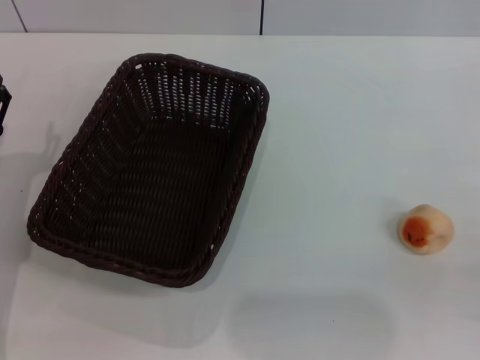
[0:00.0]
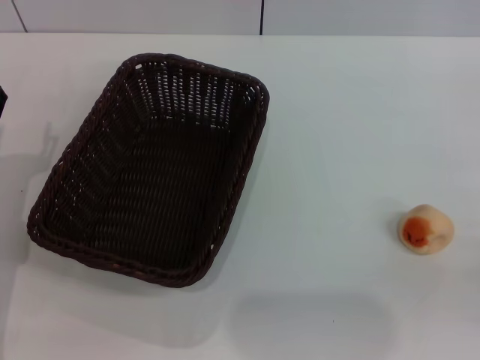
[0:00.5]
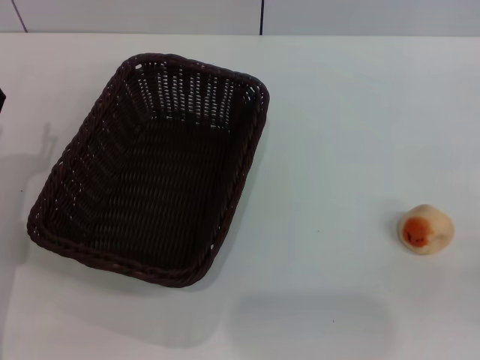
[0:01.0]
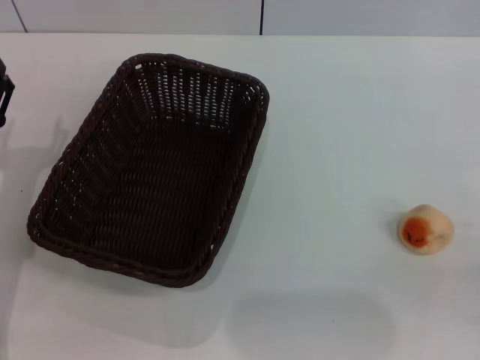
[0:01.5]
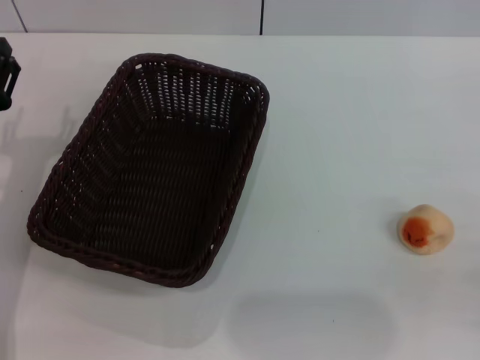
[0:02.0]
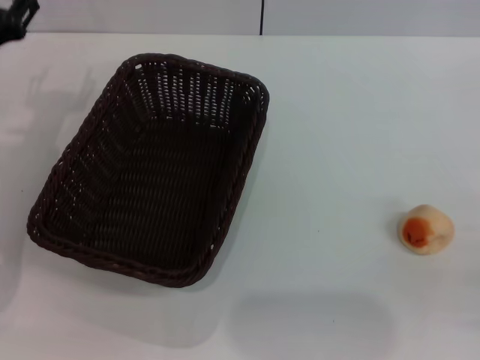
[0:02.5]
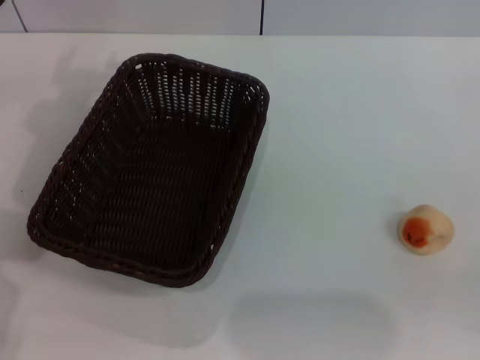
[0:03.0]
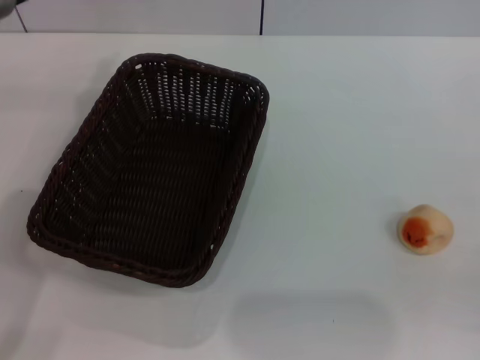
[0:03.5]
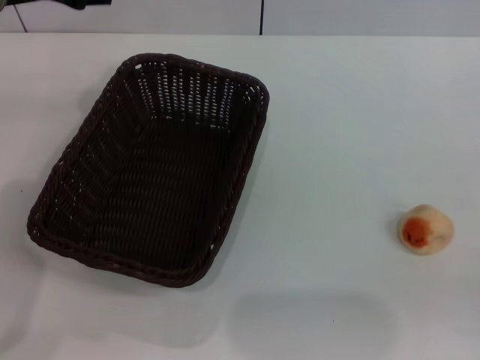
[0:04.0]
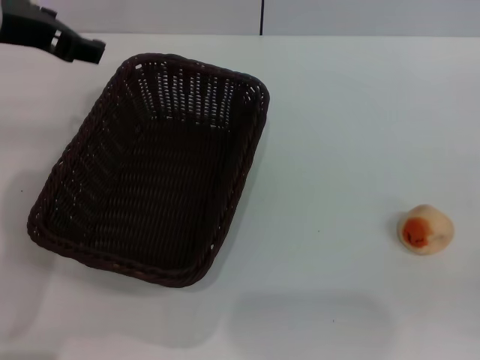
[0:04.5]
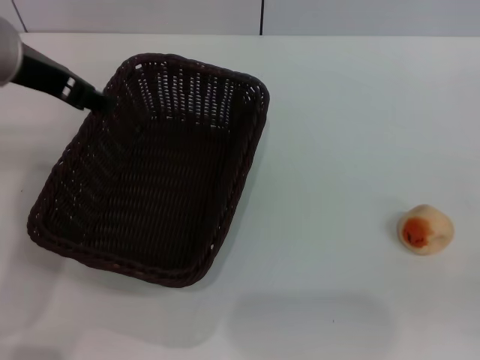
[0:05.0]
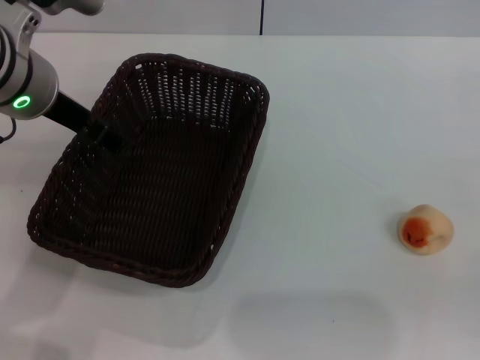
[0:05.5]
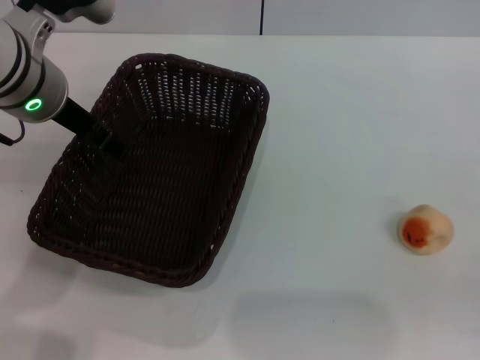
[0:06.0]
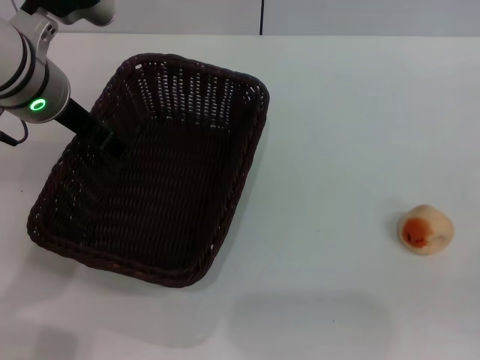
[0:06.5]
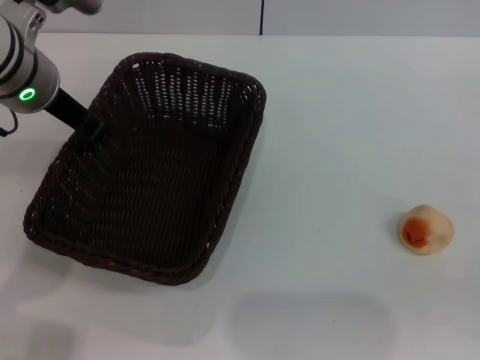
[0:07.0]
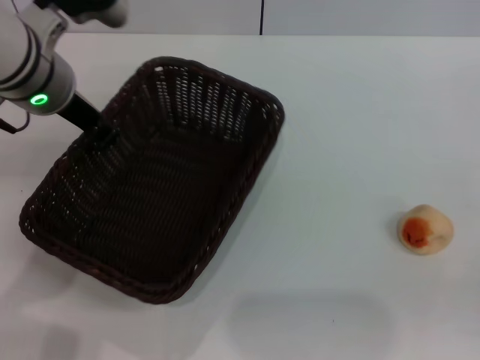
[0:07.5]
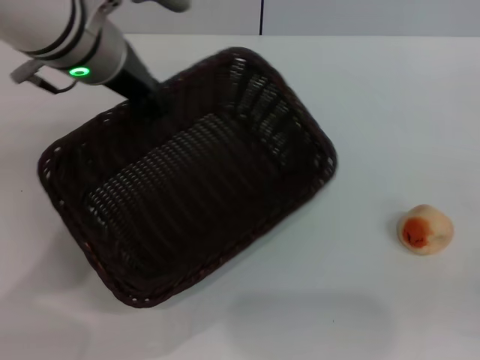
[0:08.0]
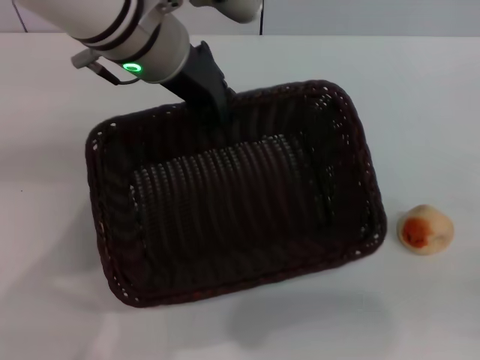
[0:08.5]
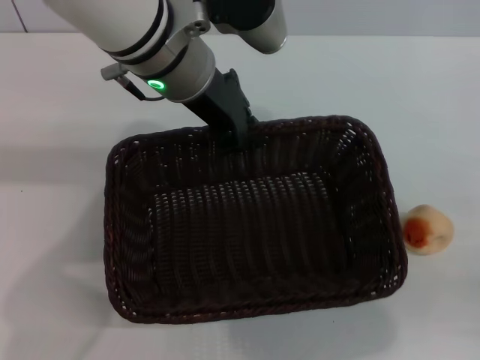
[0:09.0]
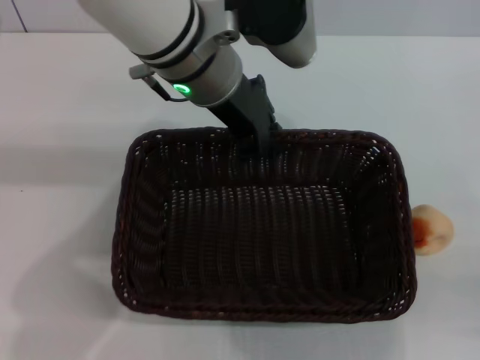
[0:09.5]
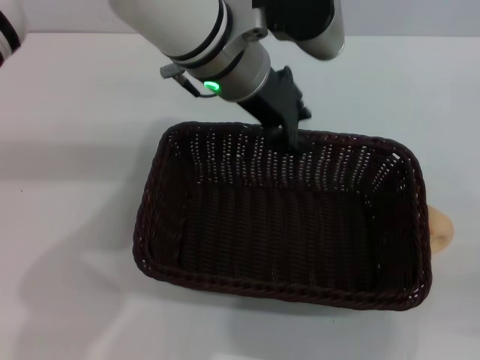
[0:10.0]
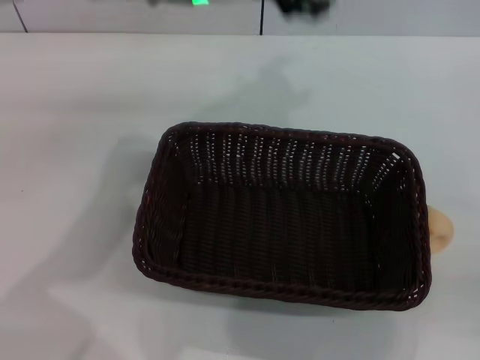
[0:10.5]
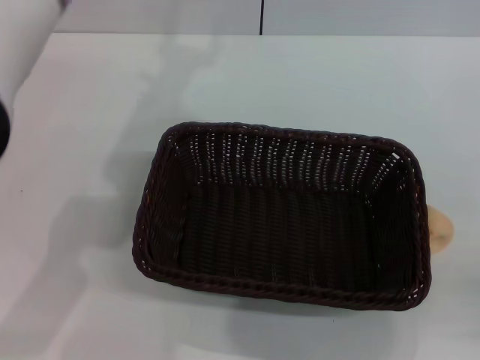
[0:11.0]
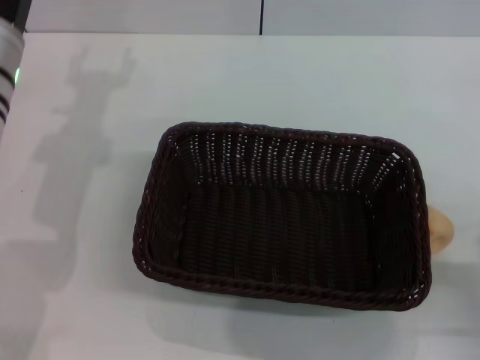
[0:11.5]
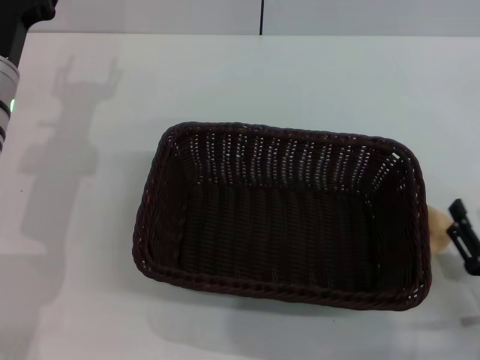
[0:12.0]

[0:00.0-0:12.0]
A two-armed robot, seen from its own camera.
Step, 0:00.0 to 0:10.0: Move the basket to the center of view with the left gripper.
0:02.0 to 0:04.0: The left gripper is displaced upward by about 20 cm.
0:04.0 to 0:06.0: The left gripper travels downward by approximately 5 cm.
0:06.0 to 0:08.0: The left gripper ends up roughly 5 cm from where it was, and closes.
0:08.0 to 0:10.0: The left gripper is displaced to the right by about 10 cm.
0:10.0 to 0:12.0: The right gripper heads to the left, covering about 5 cm; the left gripper goes approximately 25 cm to the left and downward, and opens.

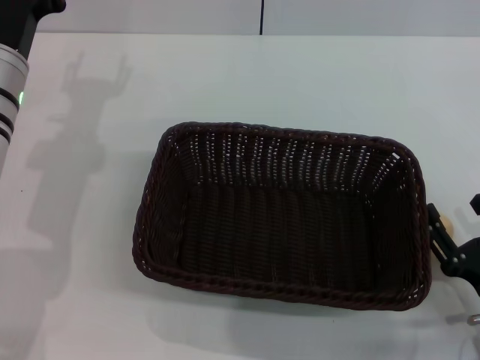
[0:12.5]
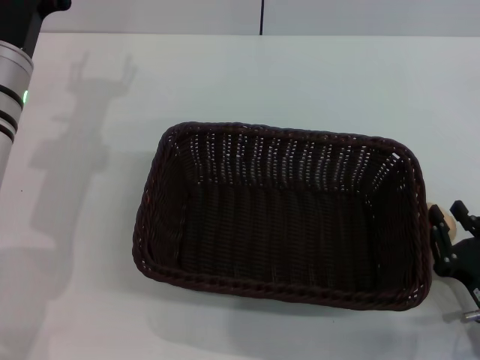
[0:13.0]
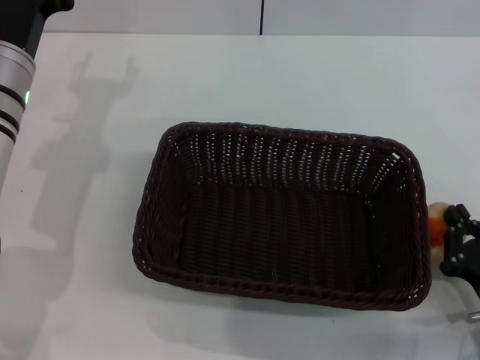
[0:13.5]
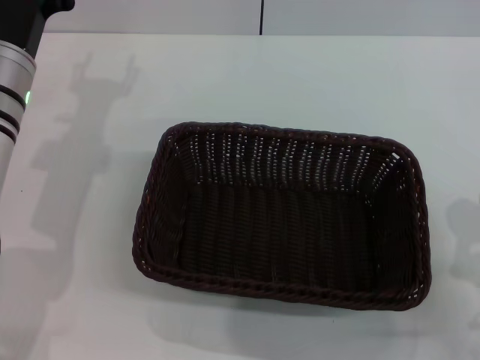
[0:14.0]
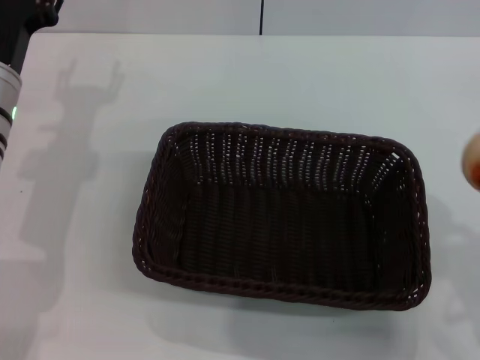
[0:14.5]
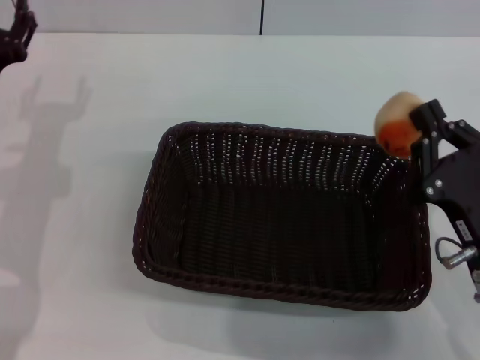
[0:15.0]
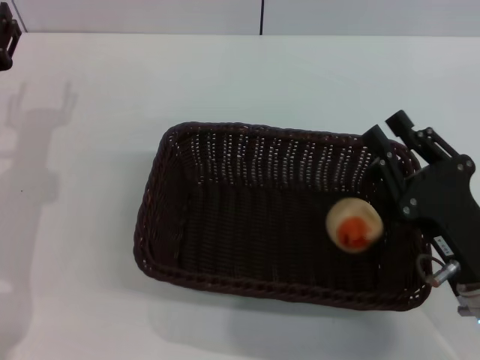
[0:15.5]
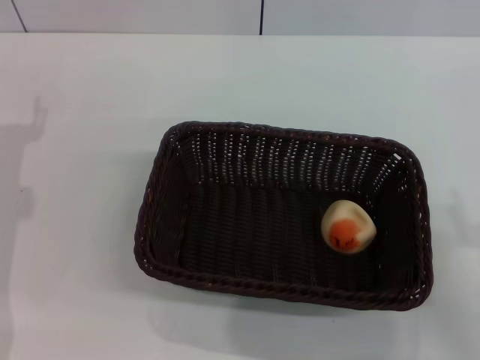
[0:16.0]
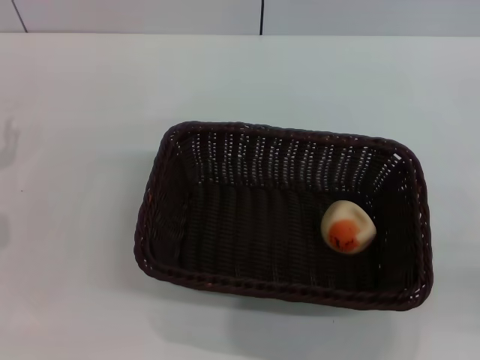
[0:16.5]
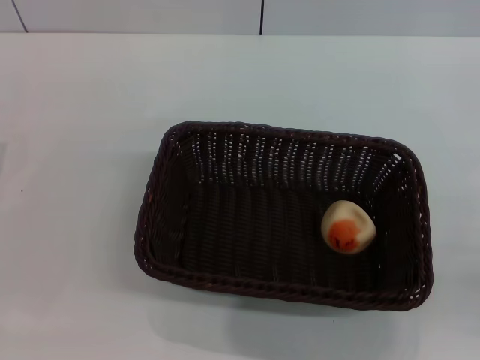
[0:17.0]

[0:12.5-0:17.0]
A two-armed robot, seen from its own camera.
Step, 0:14.0 to 0:15.5: Place the egg yolk pastry into the basket with the right gripper.
0:12.5 to 0:14.5: The right gripper goes about 5 cm upward, and closes its fingers.
0:14.5 to 0:17.0: The left gripper shifts roughly 15 cm backward, to the left and downward, while the right gripper shifts approximately 10 cm to the right, and opens its fingers.

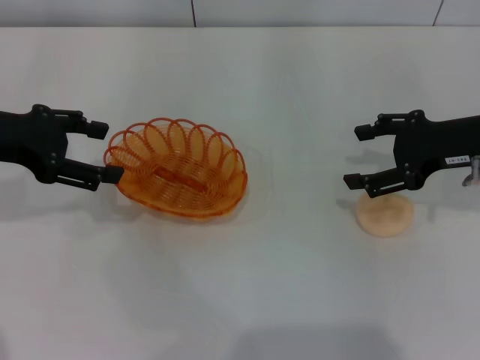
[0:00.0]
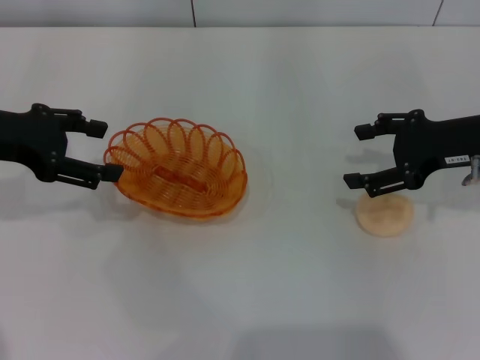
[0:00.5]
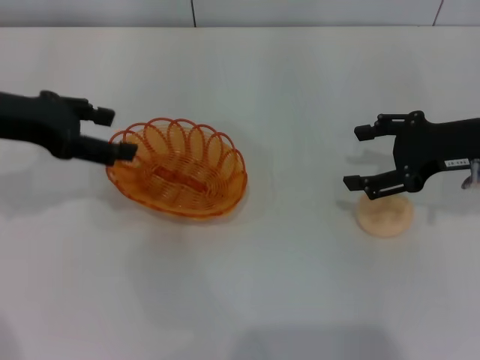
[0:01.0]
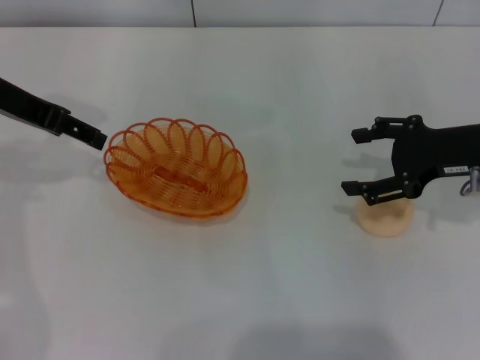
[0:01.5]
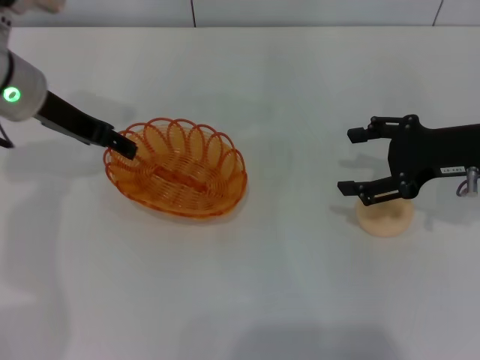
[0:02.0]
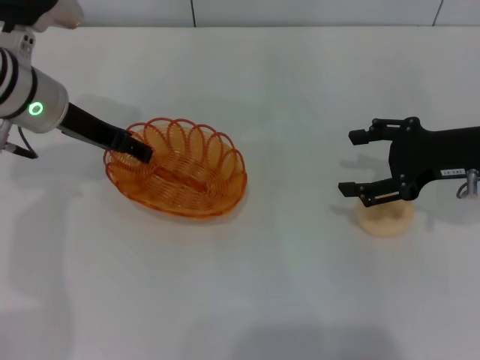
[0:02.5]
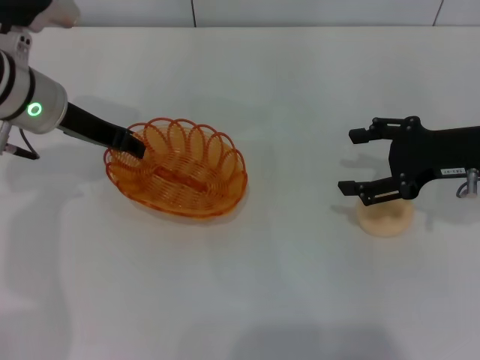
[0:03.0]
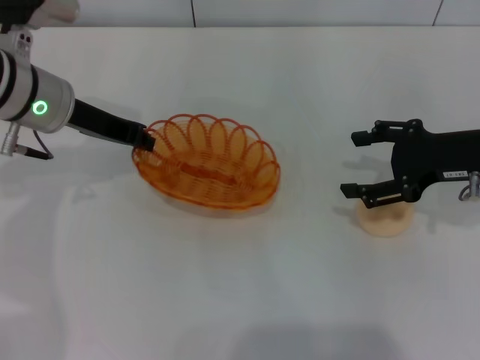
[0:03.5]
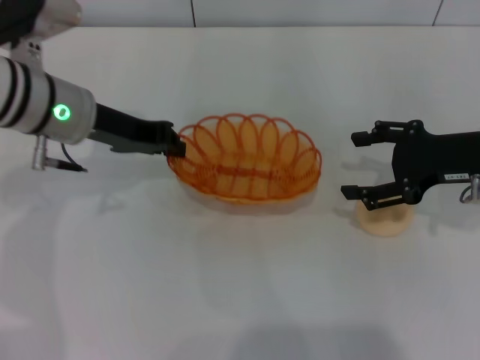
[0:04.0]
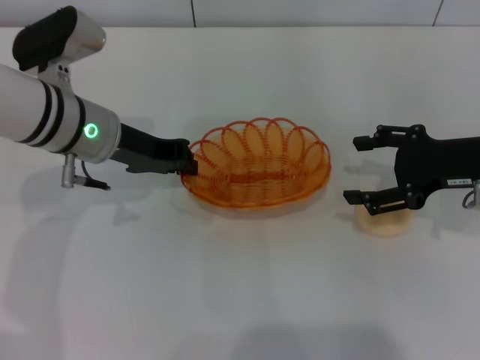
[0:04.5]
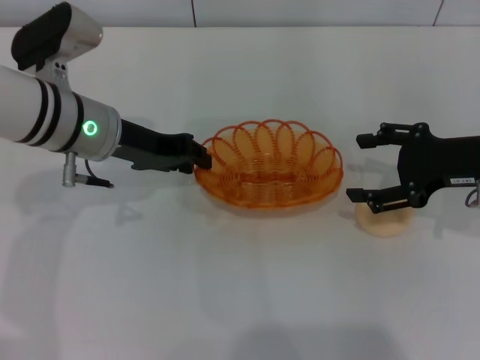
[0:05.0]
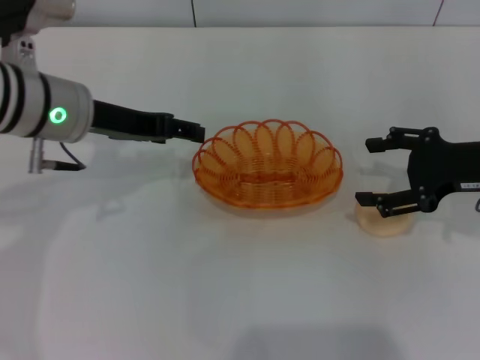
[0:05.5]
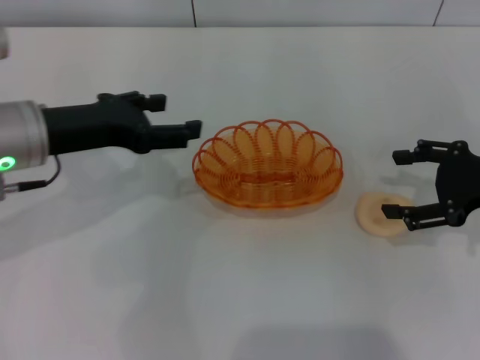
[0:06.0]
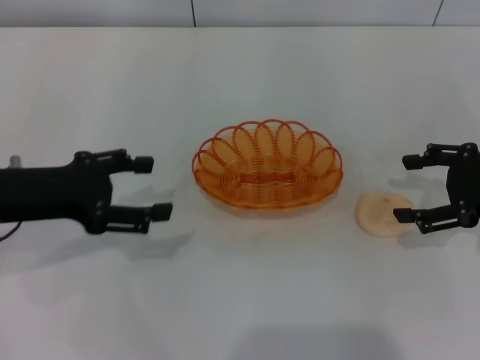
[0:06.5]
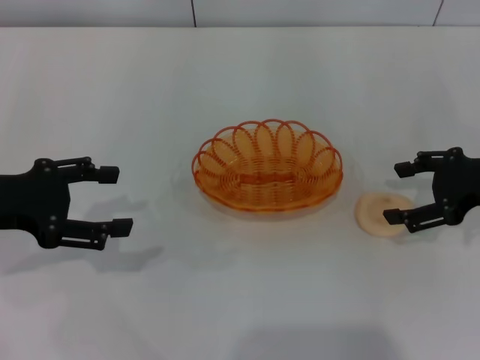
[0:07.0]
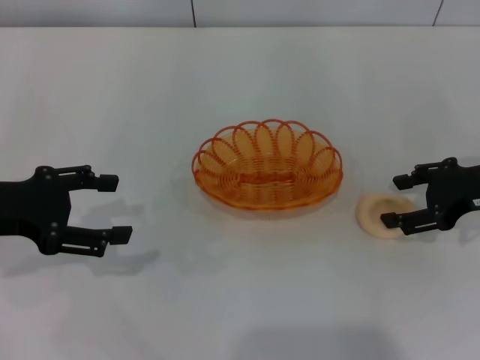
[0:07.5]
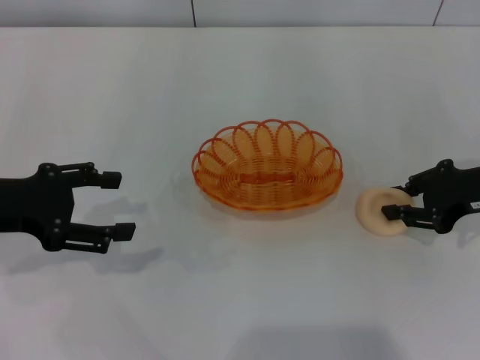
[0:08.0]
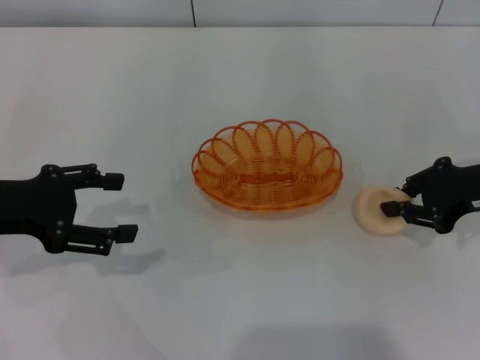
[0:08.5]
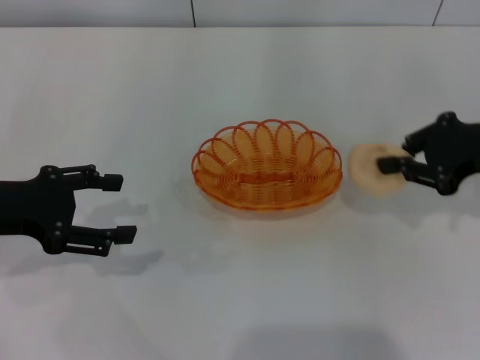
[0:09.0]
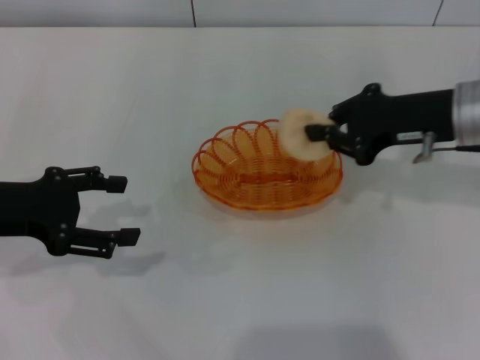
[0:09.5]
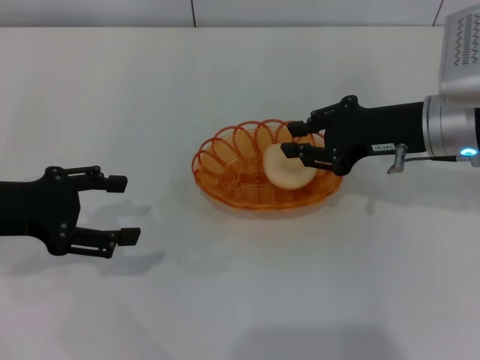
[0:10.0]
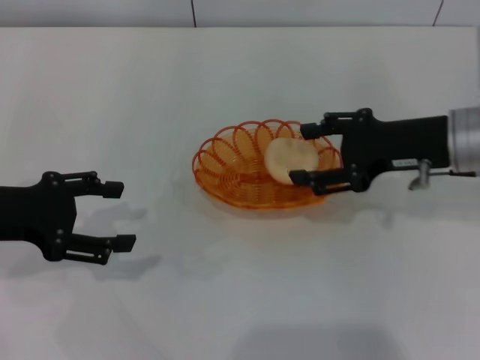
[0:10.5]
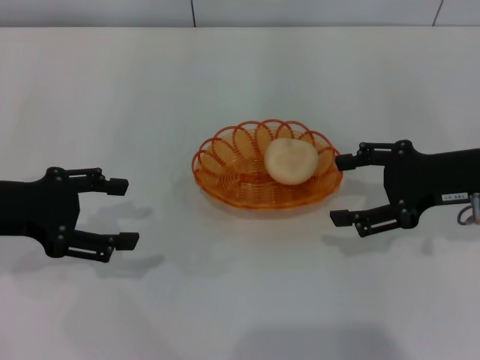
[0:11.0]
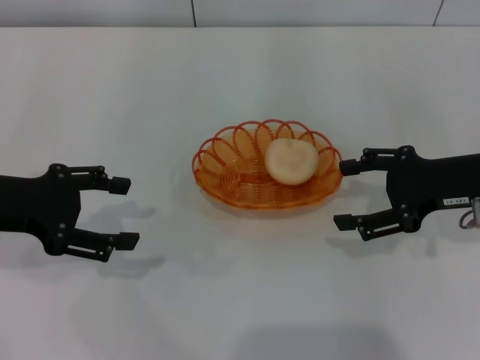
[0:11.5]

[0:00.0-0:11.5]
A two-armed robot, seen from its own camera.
Step, 0:00.0 to 0:03.5: Pick up the basket with the left gripper.
Step, 0:04.0 to 0:05.5: Place the basket in the center of view with the left gripper.
Step, 0:06.0 to 0:08.5: Pick up the egg yolk pastry with the right gripper.
Step, 0:09.0 to 0:10.0: Place the egg yolk pastry into the basket with the right gripper.
0:00.0 to 0:02.0: The left gripper is displaced to the right and forward by some 10 cm.
0:02.0 to 0:04.0: The left gripper closes.
0:04.0 to 0:06.0: The left gripper is displaced backward by approximately 5 cm, and opens up.
0:06.0 to 0:07.5: The left gripper moves to the left, about 10 cm.
0:07.5 to 0:09.5: The right gripper is displaced to the left by approximately 10 cm, and closes.
0:09.5 to 0:11.5: The right gripper changes place by about 5 cm, and opens up.
